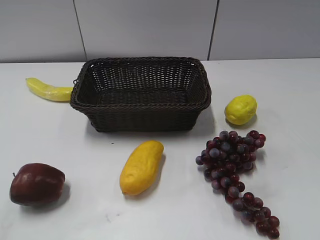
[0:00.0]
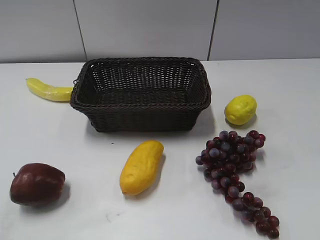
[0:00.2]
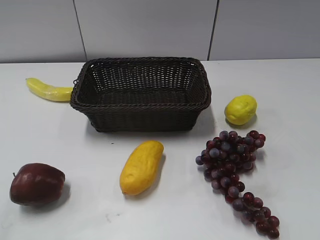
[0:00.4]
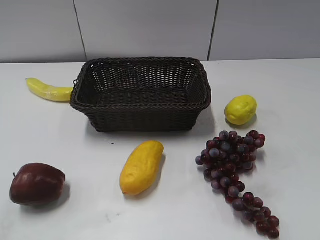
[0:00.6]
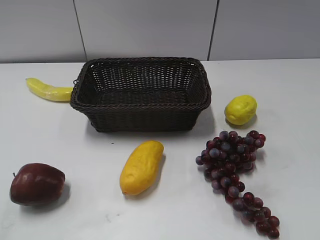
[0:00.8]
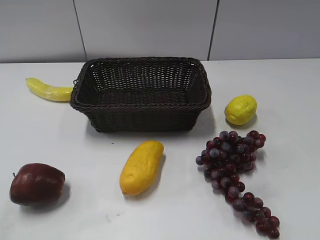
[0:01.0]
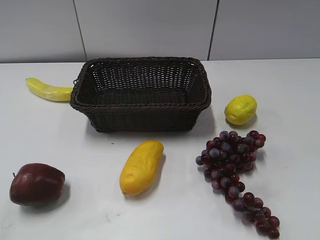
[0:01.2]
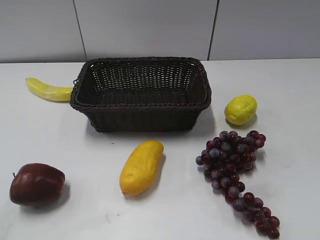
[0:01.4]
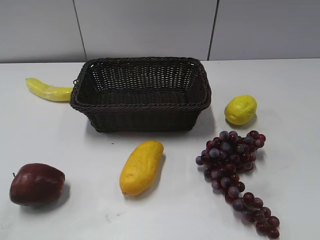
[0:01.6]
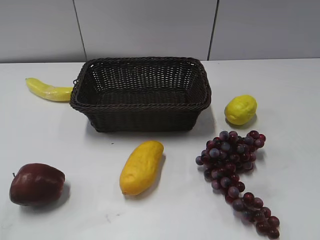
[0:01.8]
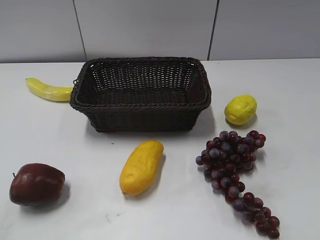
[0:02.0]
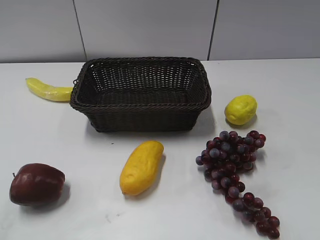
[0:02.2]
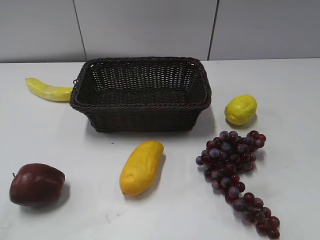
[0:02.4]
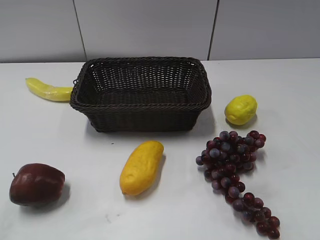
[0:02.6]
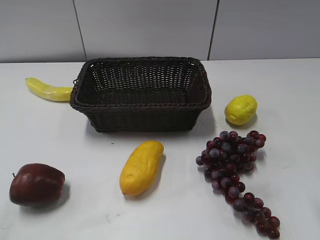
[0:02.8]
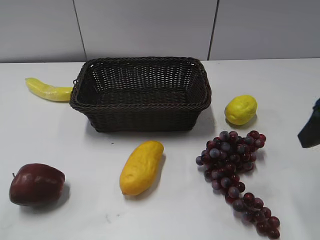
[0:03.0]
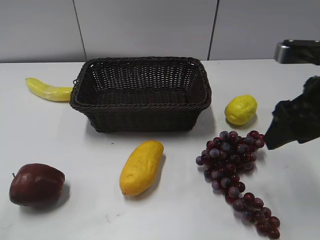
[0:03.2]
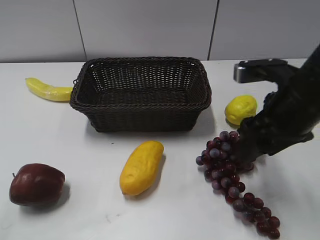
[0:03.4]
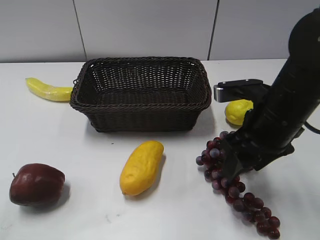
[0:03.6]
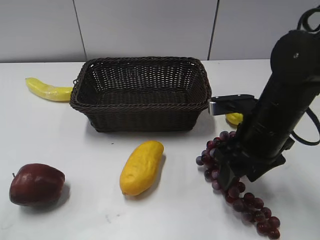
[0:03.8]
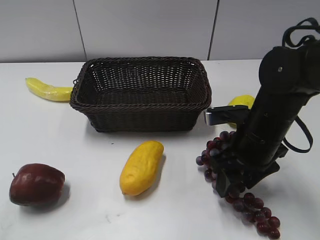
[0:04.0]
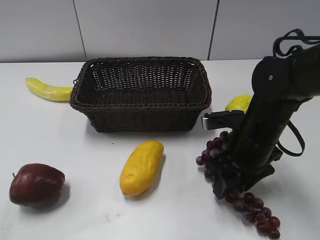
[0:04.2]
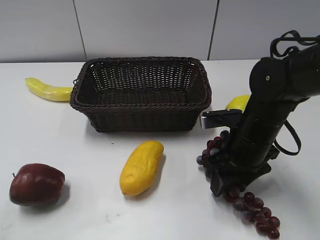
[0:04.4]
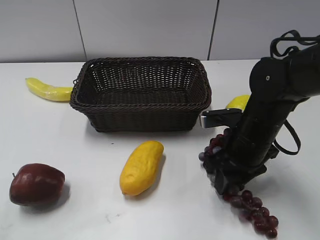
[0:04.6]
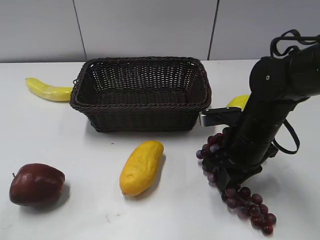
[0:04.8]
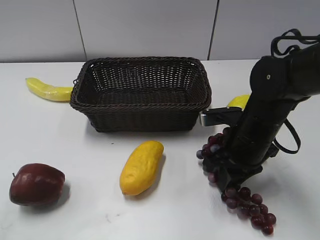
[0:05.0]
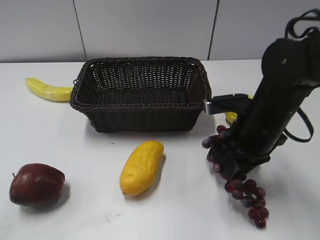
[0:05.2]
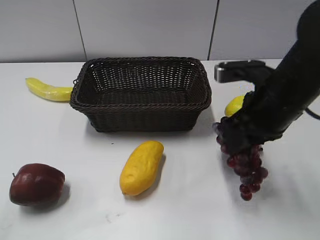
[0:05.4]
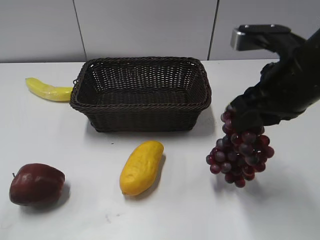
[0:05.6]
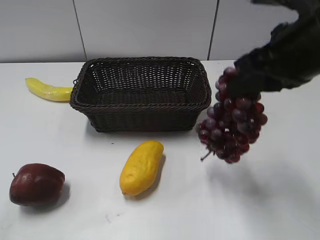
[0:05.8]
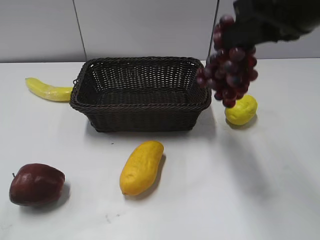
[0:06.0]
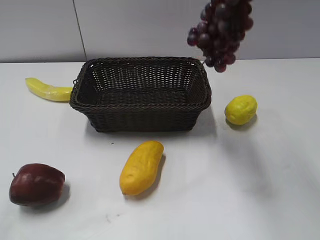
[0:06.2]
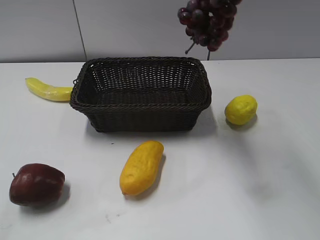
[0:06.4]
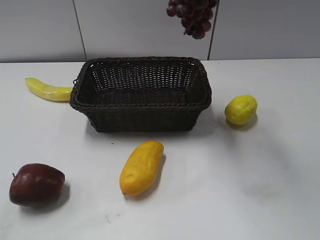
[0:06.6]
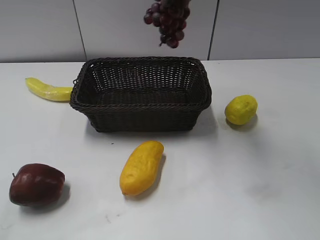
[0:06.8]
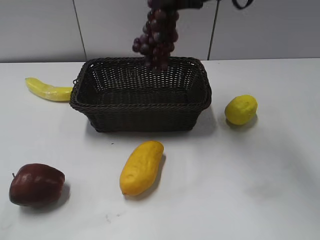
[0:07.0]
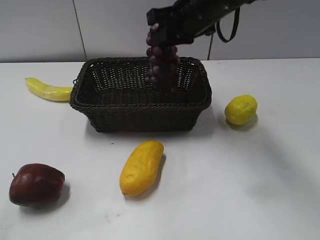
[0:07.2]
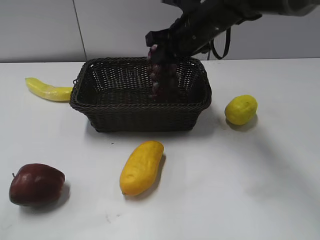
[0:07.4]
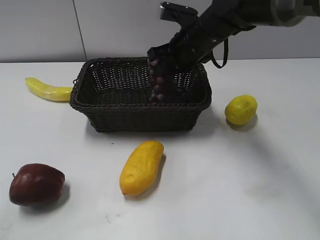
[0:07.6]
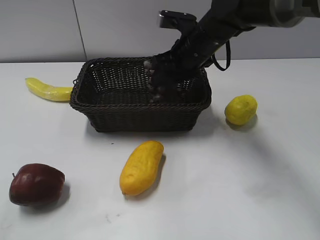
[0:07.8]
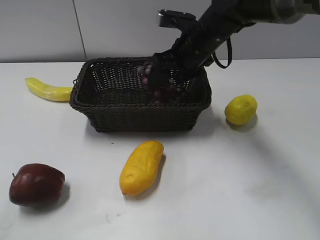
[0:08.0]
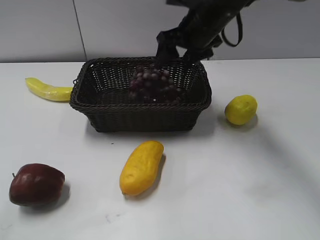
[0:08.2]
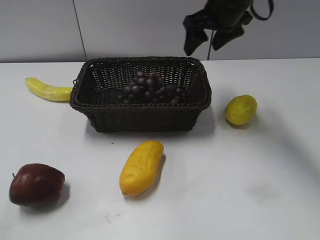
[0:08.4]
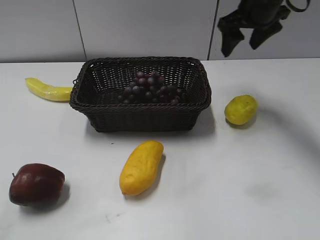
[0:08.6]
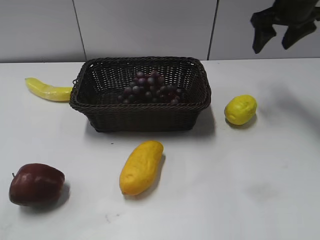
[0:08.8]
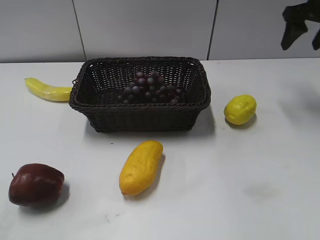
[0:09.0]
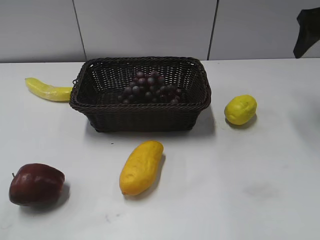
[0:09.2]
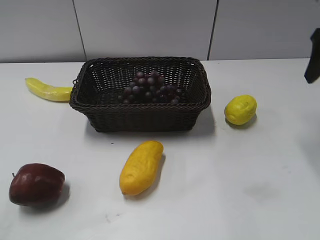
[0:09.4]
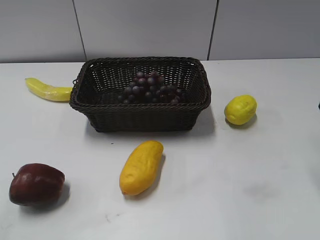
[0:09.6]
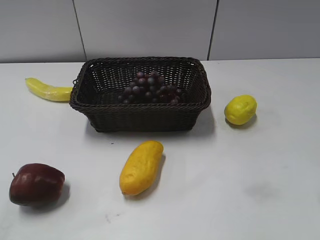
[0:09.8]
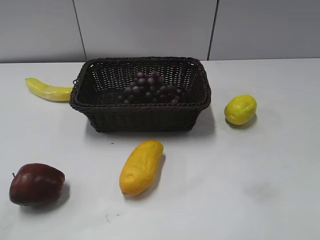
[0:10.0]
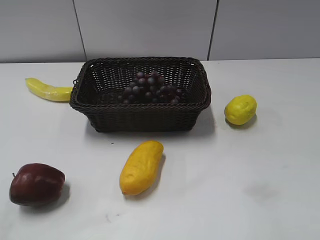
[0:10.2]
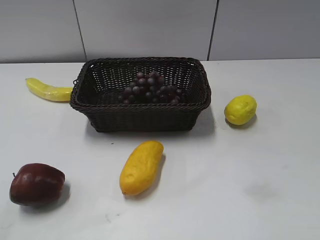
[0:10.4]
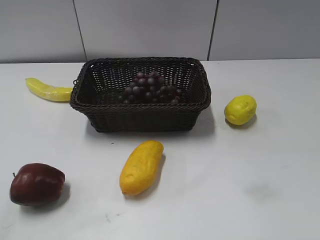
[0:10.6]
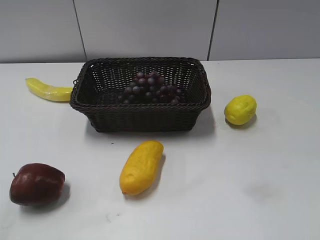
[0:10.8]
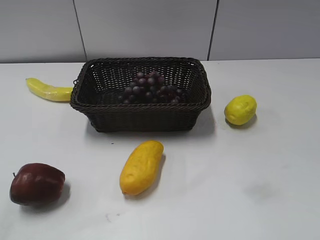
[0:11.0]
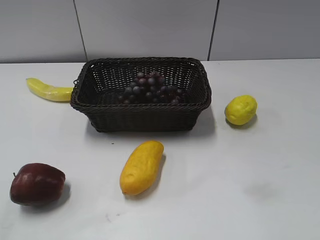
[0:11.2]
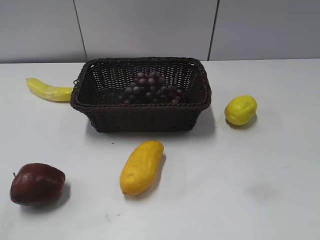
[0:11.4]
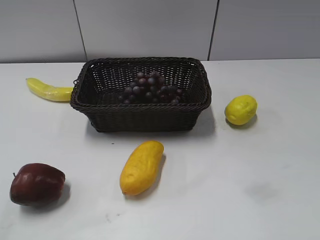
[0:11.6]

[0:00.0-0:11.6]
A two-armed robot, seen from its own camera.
Step, 0:03.0 to 0:05.2: Grasp the grape with right gripper.
Step, 0:05.4 to 0:08.2: Place the grape in the basket with right gripper.
0:02.8 to 0:04.4: The right gripper goes roughly 20 cm downward, to the left and forward.
0:04.4 to 0:05.8: The right gripper heads upward, covering about 20 cm, and closes its fingers.
0:05.8 to 0:07.2: The right gripper goes approximately 20 cm forward and to the left.
0:07.2 to 0:08.8: The right gripper shifts approximately 20 cm to the right, and opens its fingers.
0:08.8 to 0:10.2: The right gripper travels backward by approximately 35 cm.
